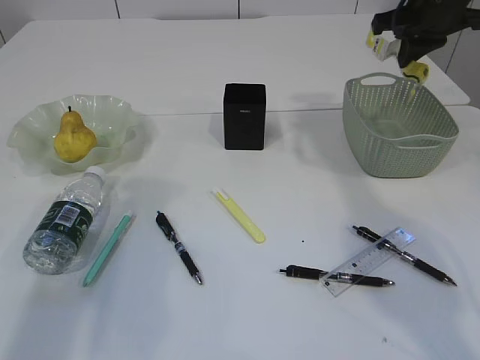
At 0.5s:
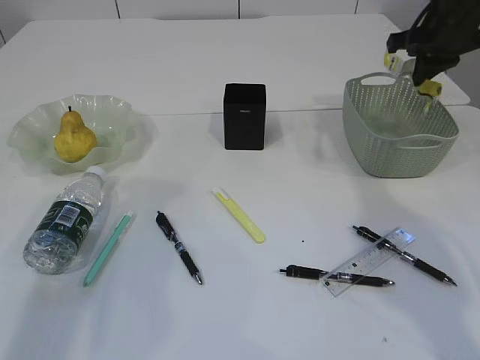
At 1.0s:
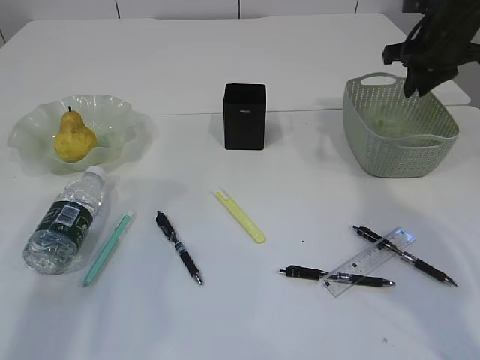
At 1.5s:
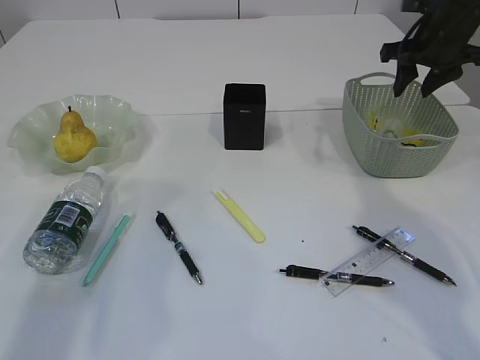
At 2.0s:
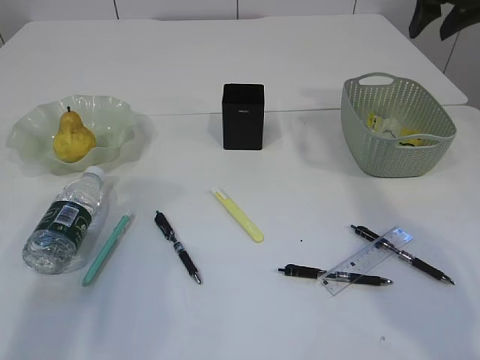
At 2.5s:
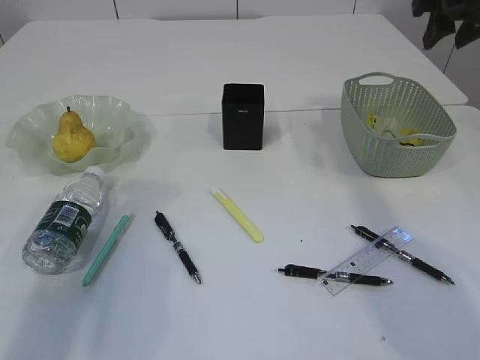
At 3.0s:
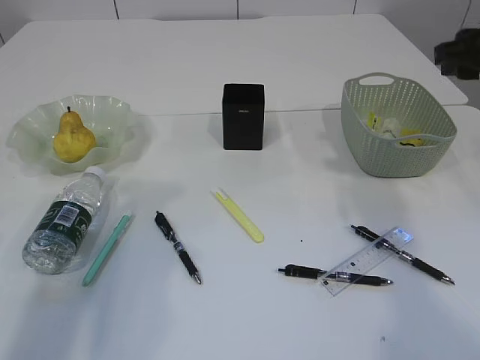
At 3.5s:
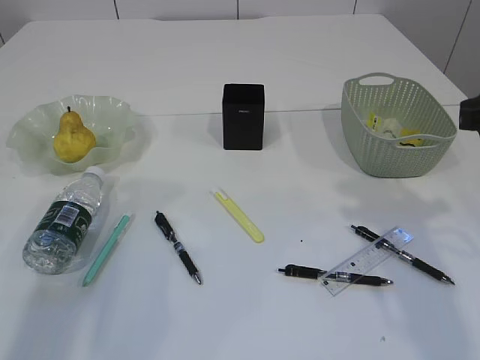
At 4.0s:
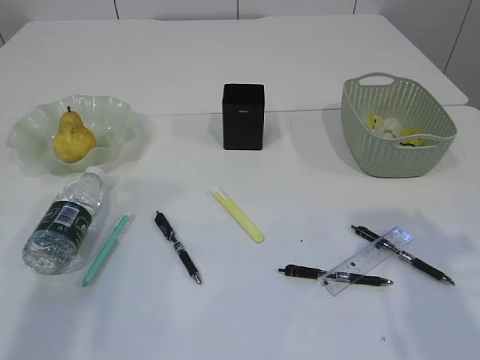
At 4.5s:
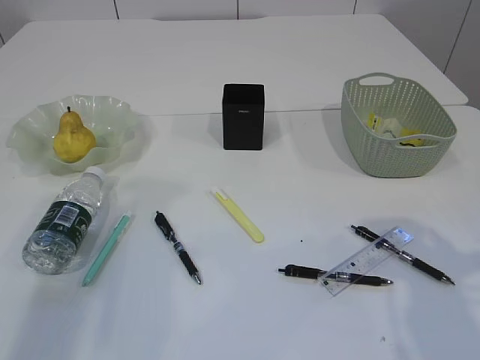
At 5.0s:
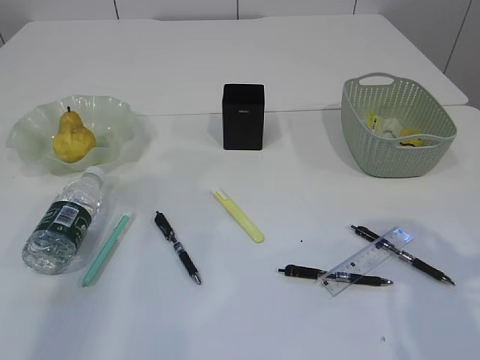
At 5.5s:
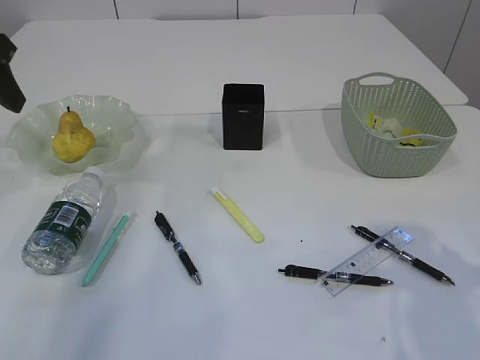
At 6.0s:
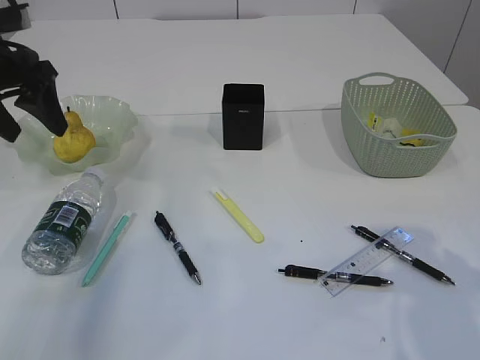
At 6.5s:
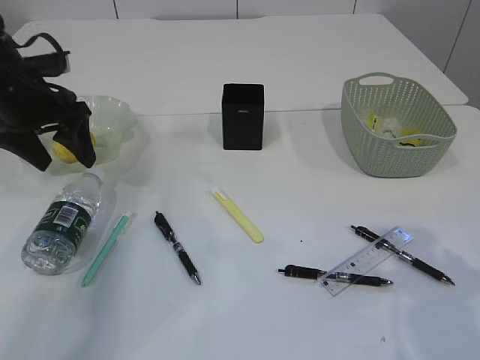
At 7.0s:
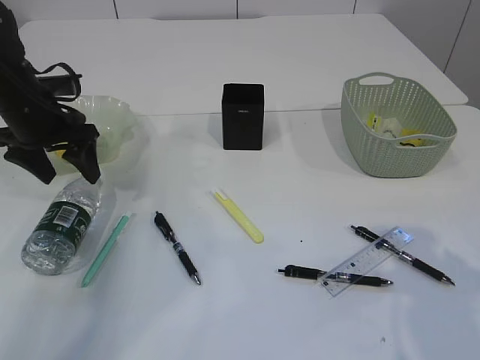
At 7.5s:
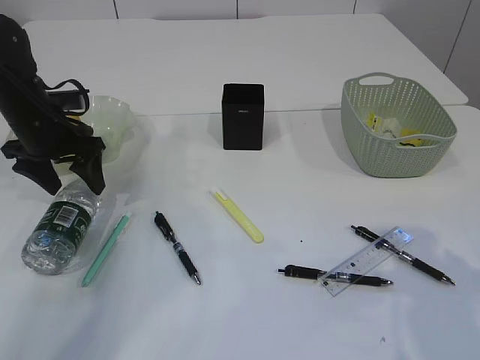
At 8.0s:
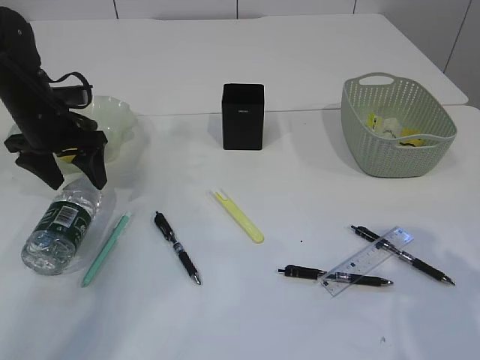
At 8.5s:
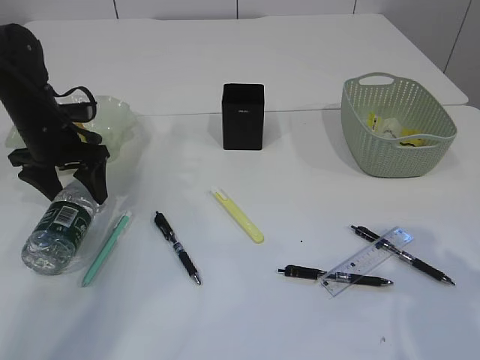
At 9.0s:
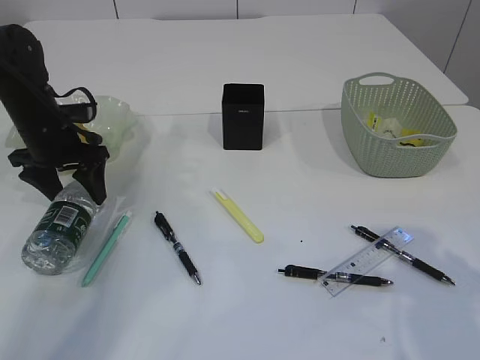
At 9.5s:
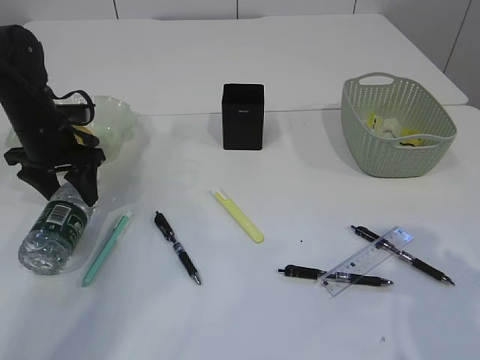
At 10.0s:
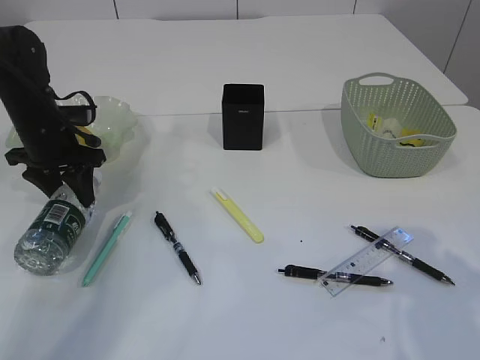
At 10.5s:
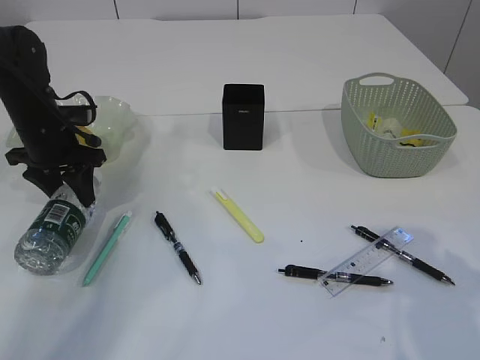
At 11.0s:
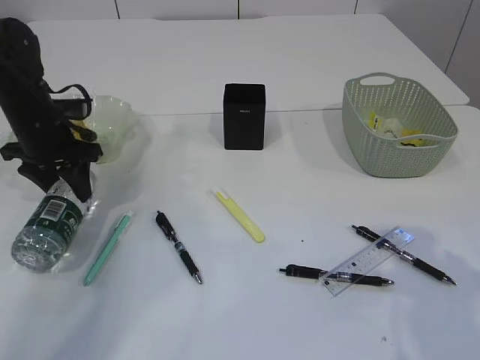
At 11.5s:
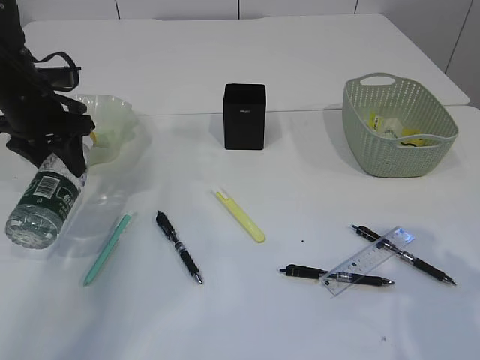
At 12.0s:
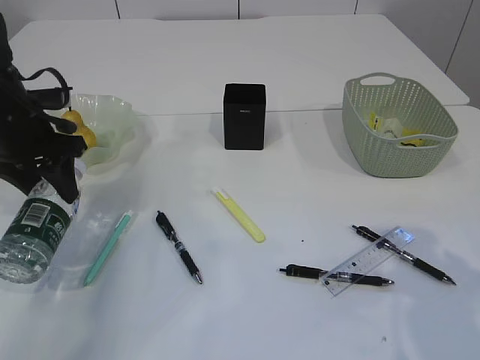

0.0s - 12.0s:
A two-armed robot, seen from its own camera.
Step, 1.5s - 11.0s: Pick up the bottle with the left arm.
0.0s - 2.0s: The right gripper opens up.
2.0s - 4.0s: The right gripper heads backward, covering some 25 cm.
4.0s - 6.0s: The left gripper moves forward, some 15 cm, and opens its fingers.
6.0s - 8.0s: The left gripper is displaced downward and forward by roughly 15 cm.
8.0s - 10.0s: The left gripper closes.
10.0s - 12.0s: The left gripper travels upward by about 5 cm.

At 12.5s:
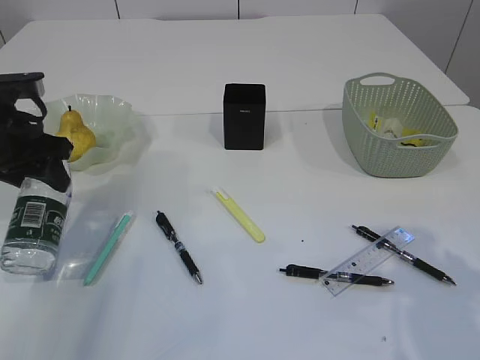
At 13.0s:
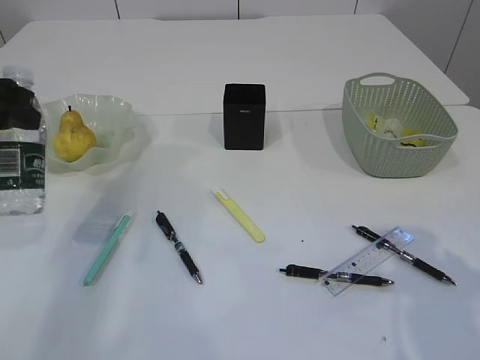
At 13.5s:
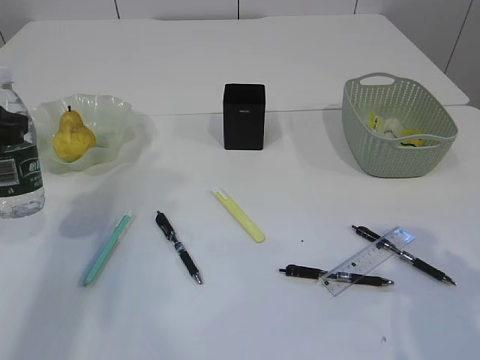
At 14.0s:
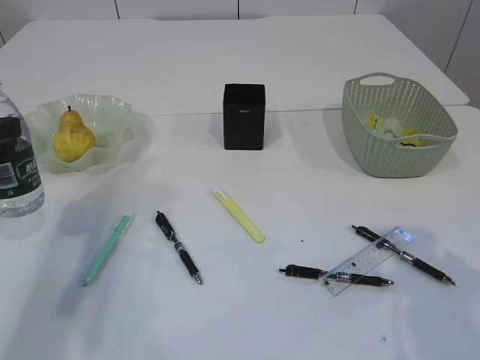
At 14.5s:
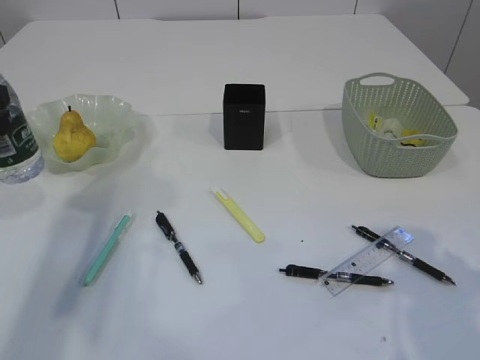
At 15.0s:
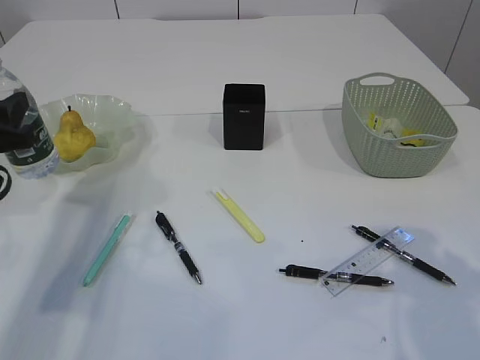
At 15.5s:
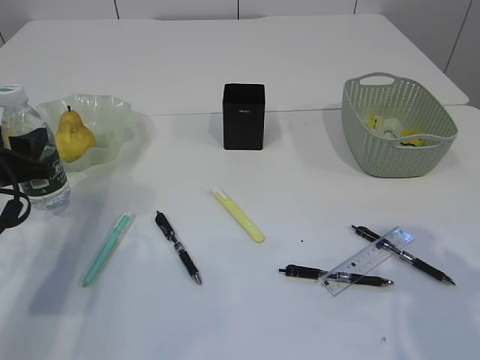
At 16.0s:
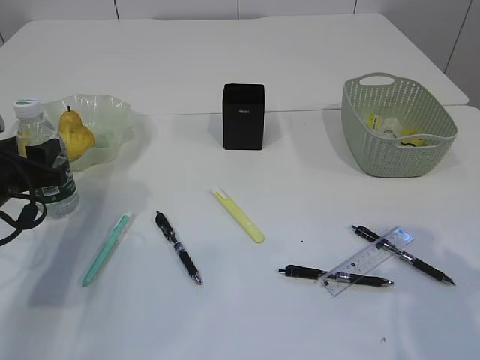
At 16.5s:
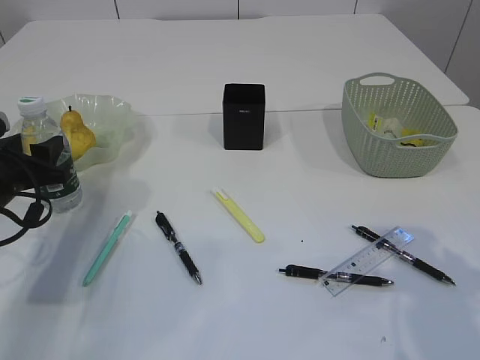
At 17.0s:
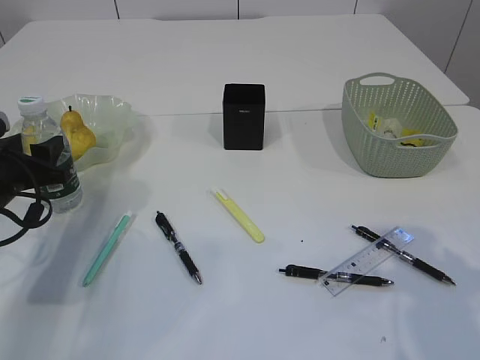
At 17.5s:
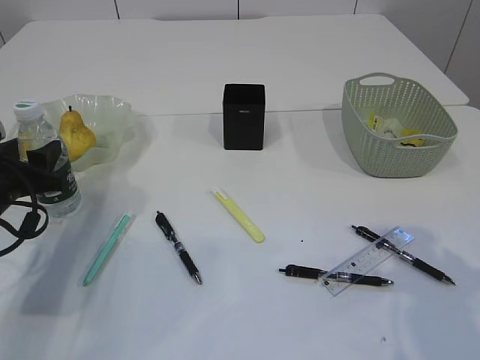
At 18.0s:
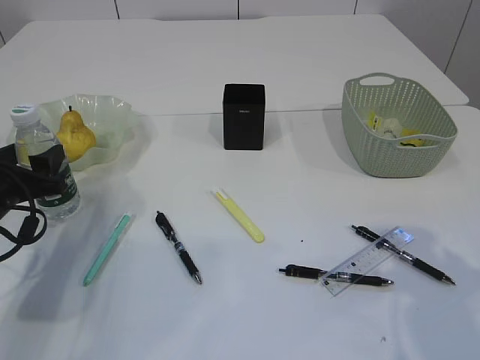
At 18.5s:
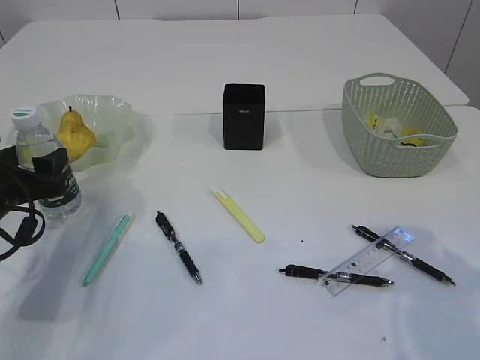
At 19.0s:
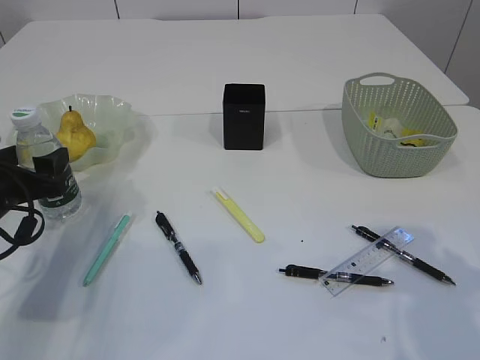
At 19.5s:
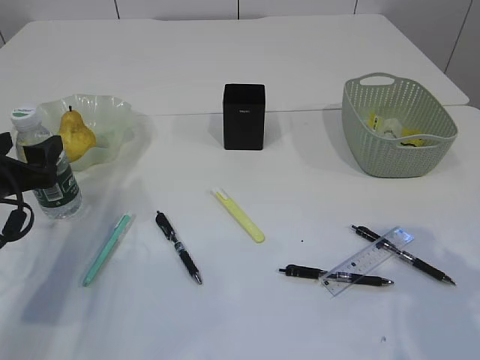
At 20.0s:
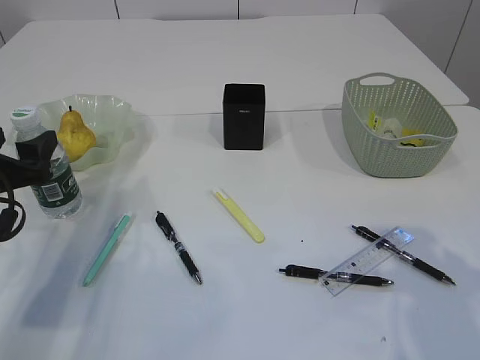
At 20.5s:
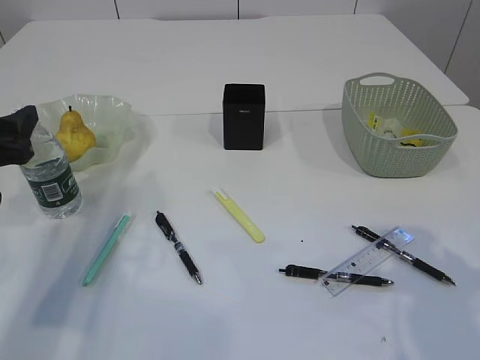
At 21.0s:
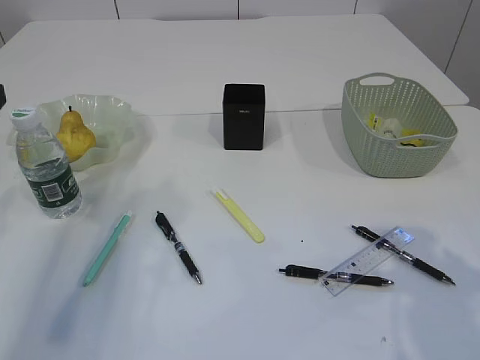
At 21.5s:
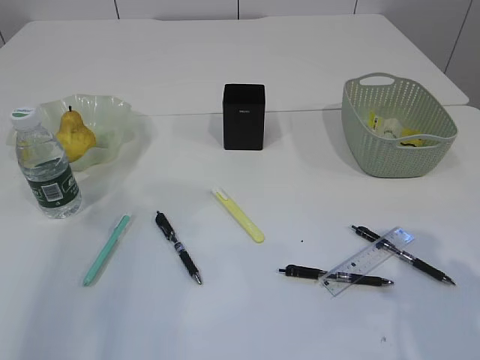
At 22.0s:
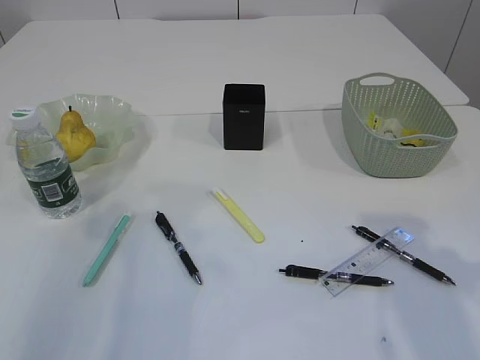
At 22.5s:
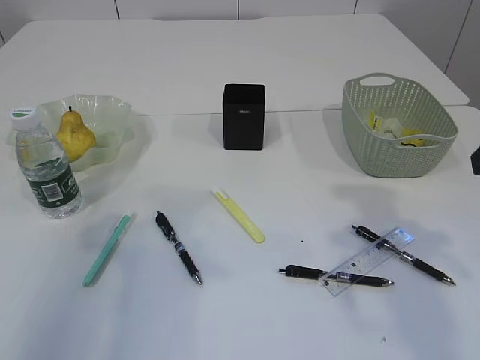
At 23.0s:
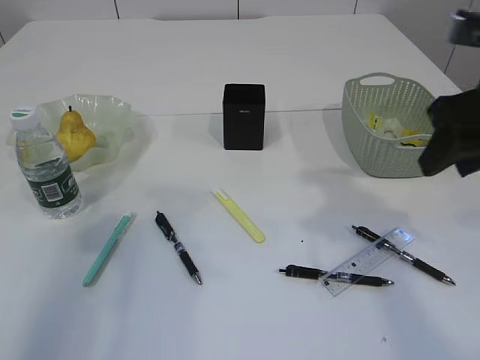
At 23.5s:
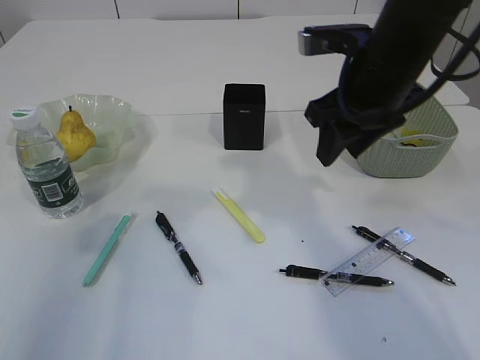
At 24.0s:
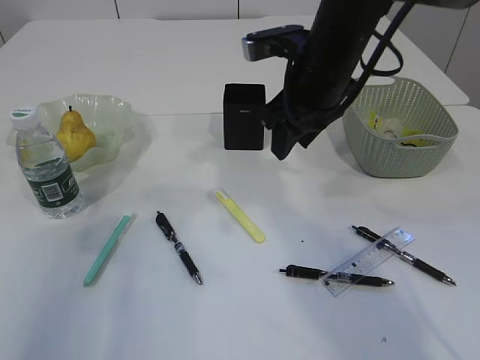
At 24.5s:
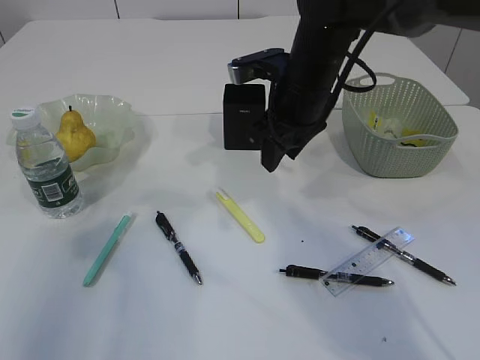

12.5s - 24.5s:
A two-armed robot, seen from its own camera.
Step, 12.5s - 19.5s: Place the bottle.
12.5s - 14.5s: The left gripper shifts roughly 10 cm backward.
14.5s - 16.5s: The left gripper shifts approximately 10 cm downward and forward.
16.5s - 18.5s: There are only small adjustments of the grippers.
18.5s - 20.5s: The left gripper heads upward, covering approximately 5 cm.
20.5s - 22.5s: The left gripper moves upward and backward, roughly 15 cm, while the right gripper is displaced upward by roughly 5 cm.
22.5s - 24.5s: The right gripper heads forward and to the left, covering approximately 25 cm.

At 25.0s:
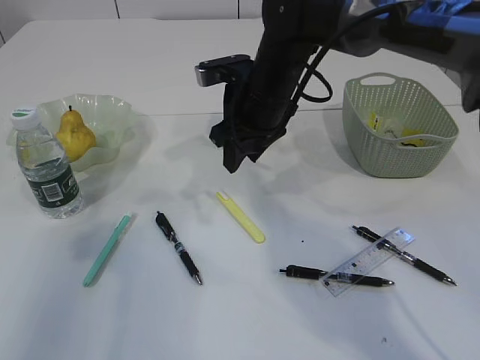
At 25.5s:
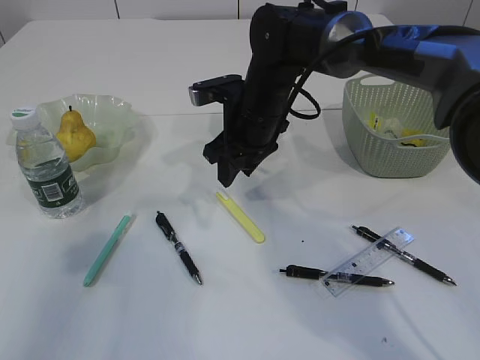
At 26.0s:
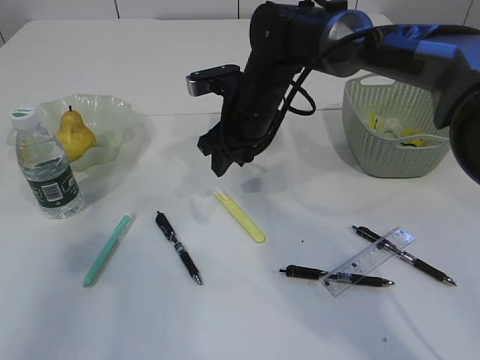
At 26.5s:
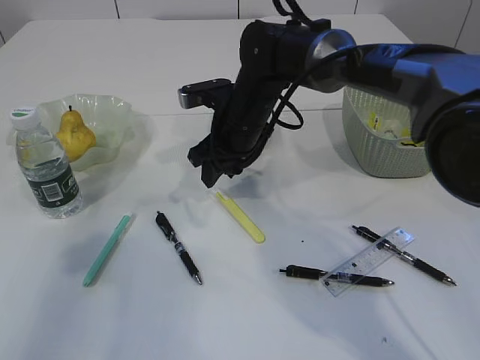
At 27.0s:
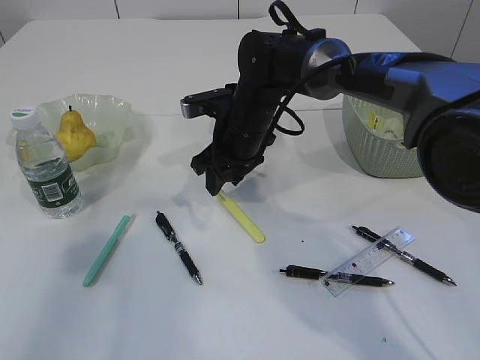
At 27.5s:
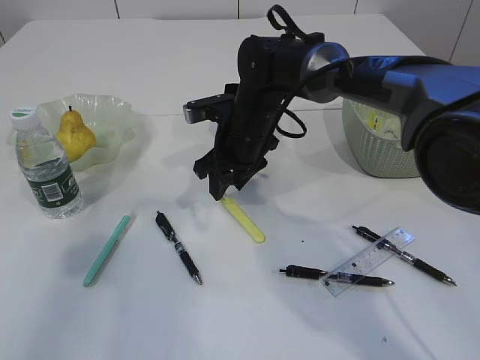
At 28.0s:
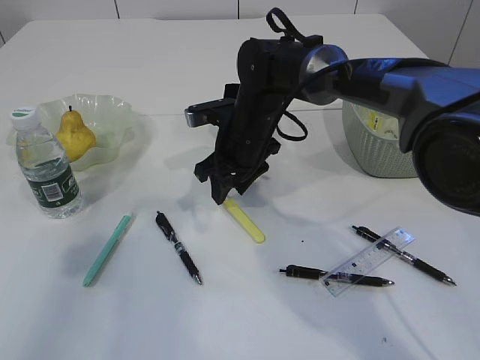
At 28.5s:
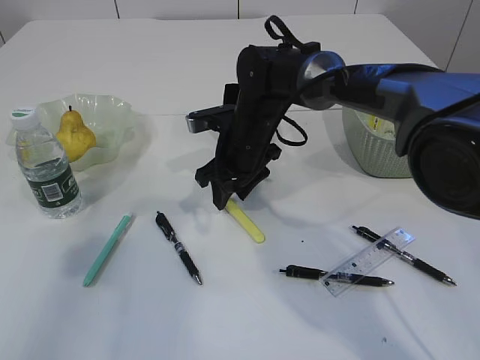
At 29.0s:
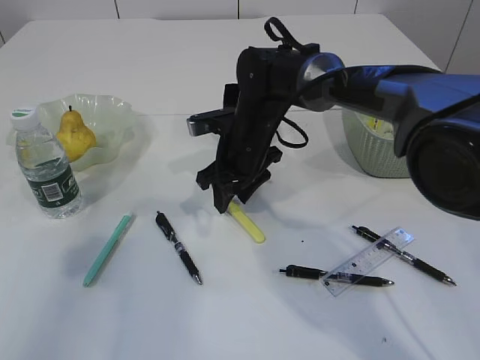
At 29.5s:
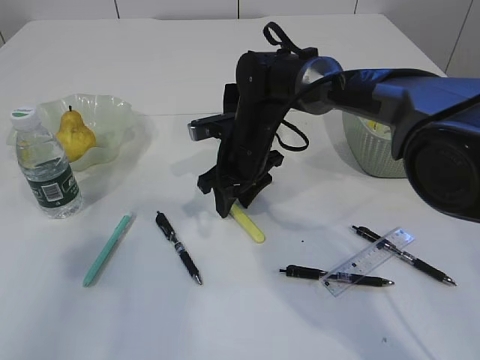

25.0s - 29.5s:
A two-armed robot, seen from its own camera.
25.0s - 27.0s: The right gripper moves downward, about 5 cm.
27.0s - 29.5s: The grippers make only small movements.
